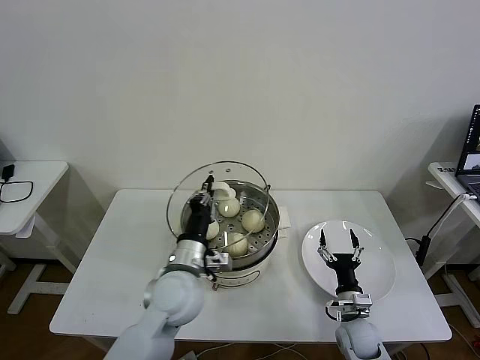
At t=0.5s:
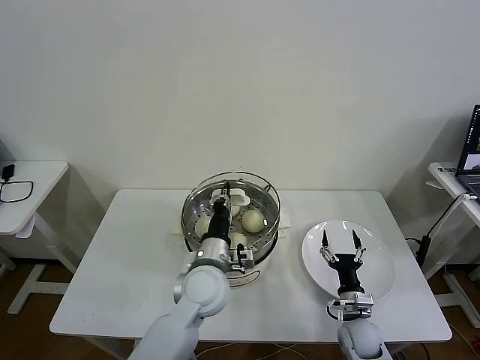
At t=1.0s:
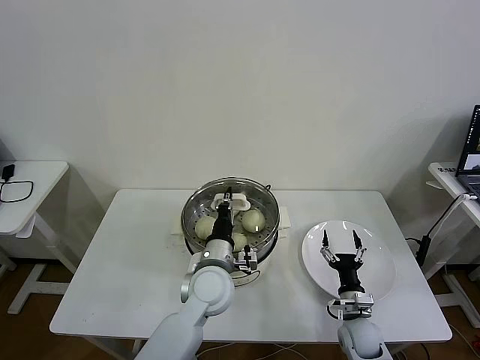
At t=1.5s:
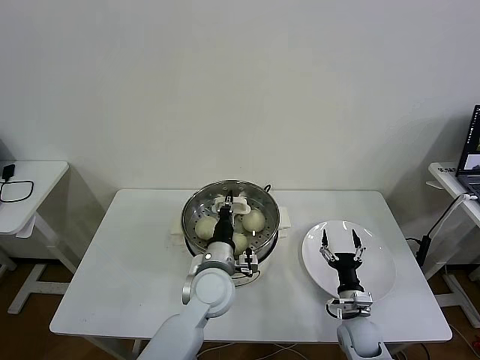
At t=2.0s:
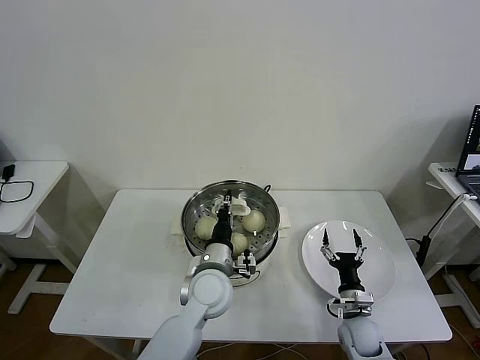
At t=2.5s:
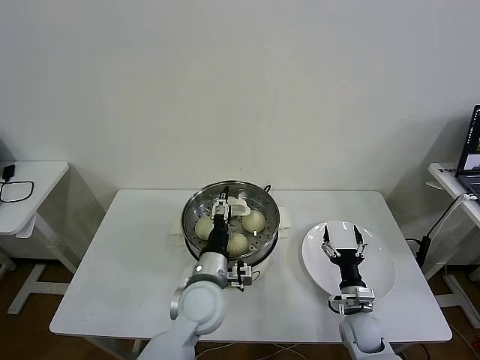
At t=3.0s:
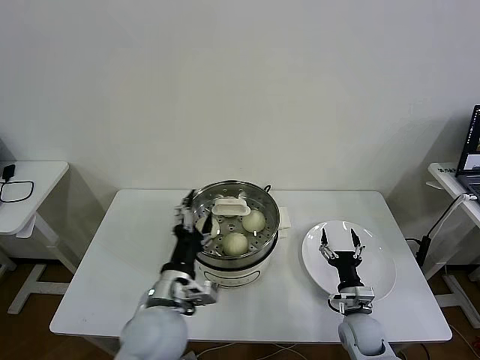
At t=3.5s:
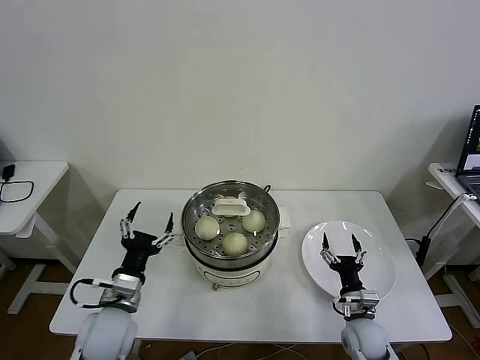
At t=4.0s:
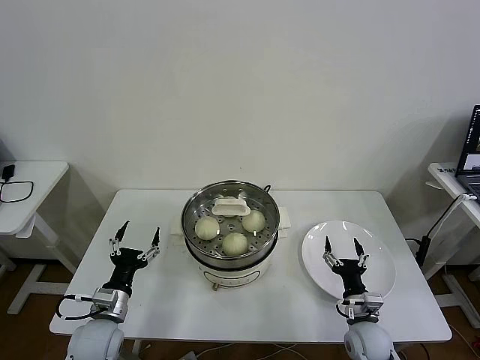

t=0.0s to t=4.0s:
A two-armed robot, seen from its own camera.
Task of the whole recording: take steamed baozi put them in steamer then cover it.
Step, t=0.0s to t=2.5s: Place the pot lid on the steamer with left gripper.
t=0.0s to t=2.0s: The left gripper goes roughly 10 cm to the right and downward.
t=2.0s to t=4.0s: The left gripper shifts some 25 cm to the left, and opens its fingers.
